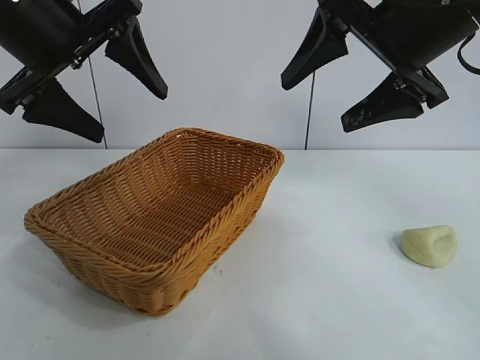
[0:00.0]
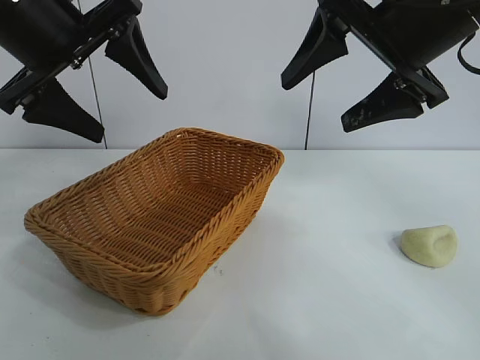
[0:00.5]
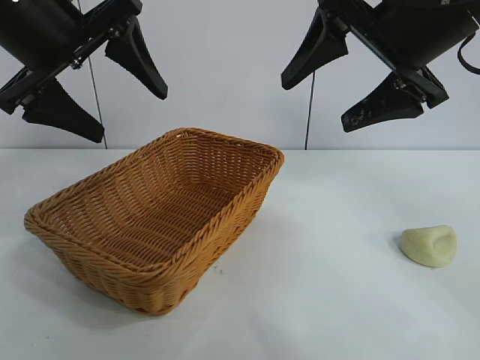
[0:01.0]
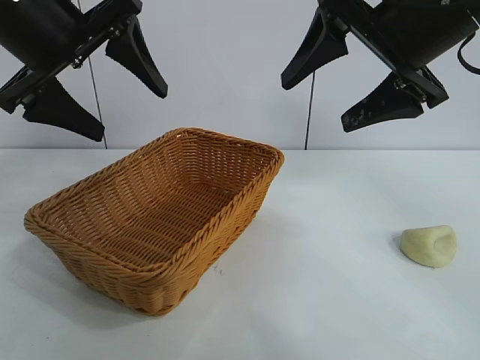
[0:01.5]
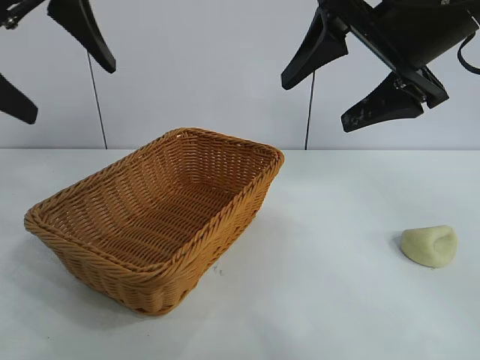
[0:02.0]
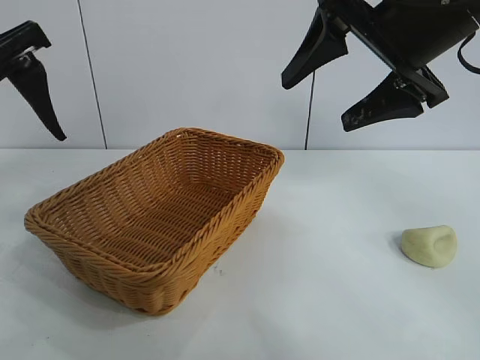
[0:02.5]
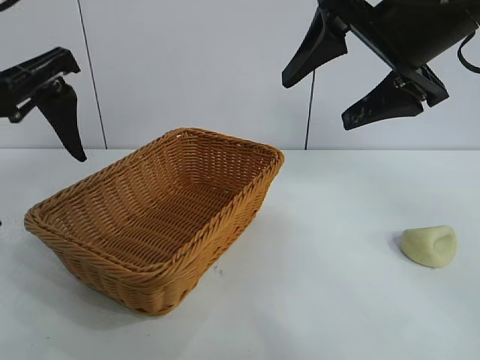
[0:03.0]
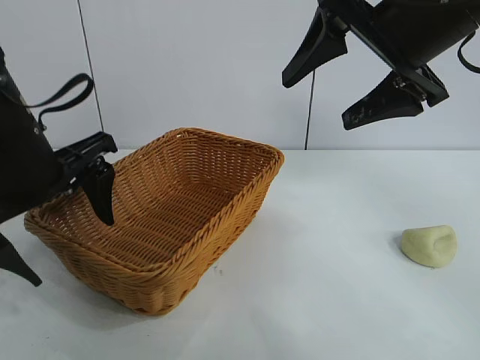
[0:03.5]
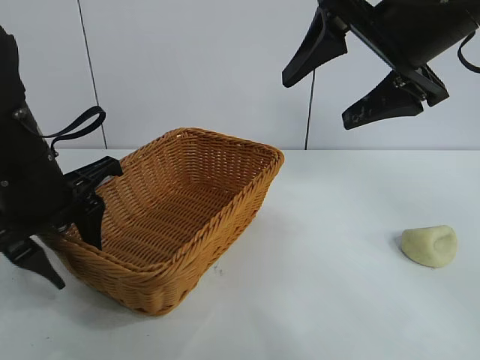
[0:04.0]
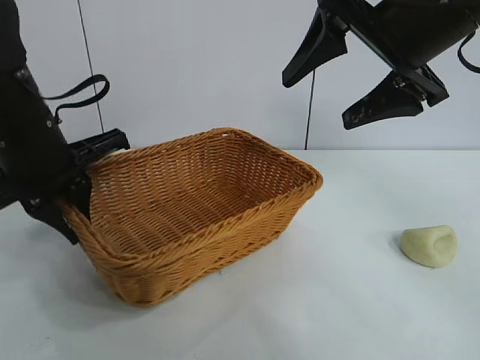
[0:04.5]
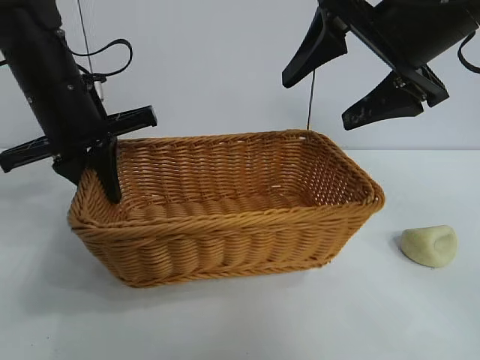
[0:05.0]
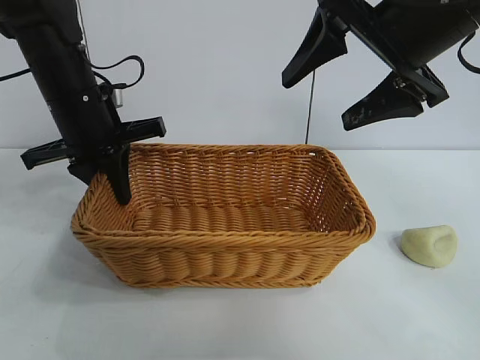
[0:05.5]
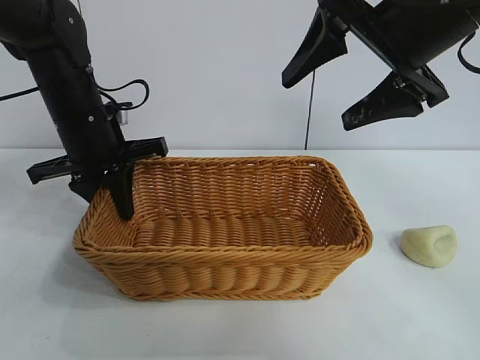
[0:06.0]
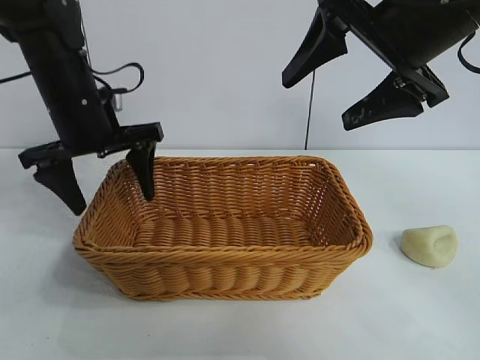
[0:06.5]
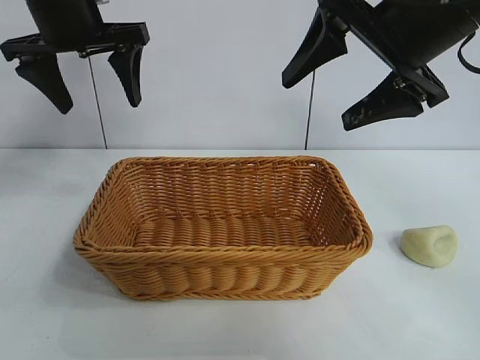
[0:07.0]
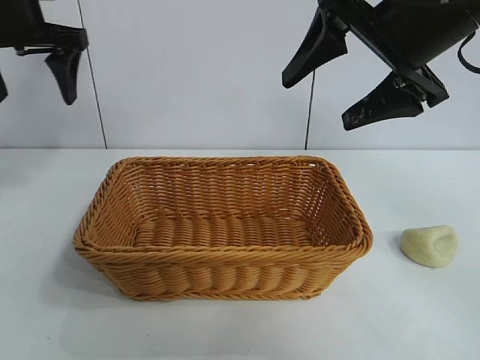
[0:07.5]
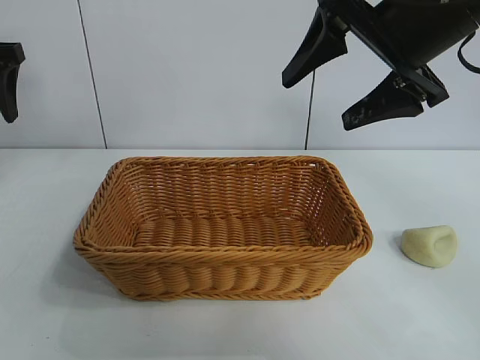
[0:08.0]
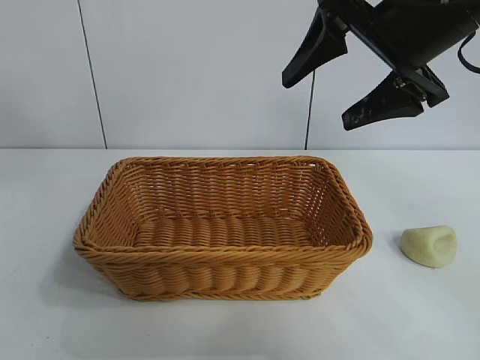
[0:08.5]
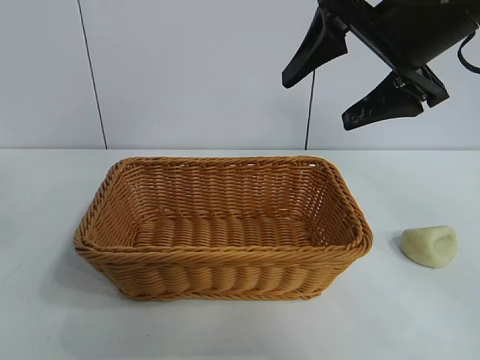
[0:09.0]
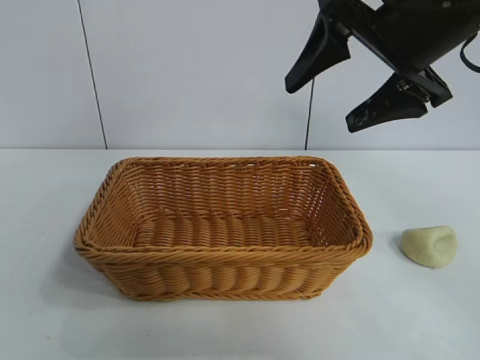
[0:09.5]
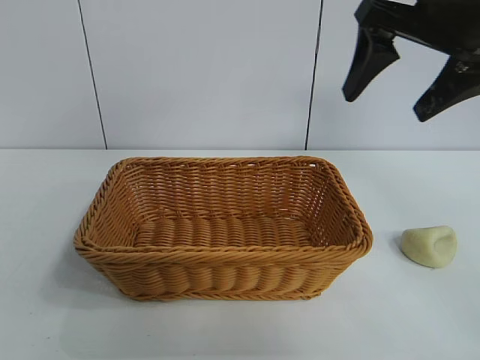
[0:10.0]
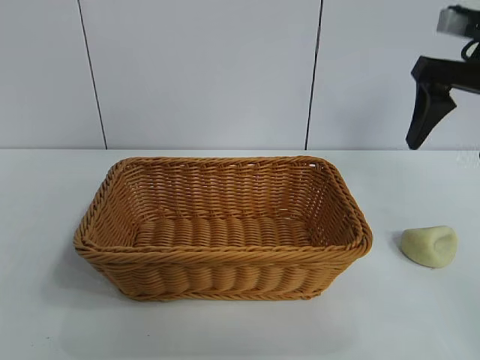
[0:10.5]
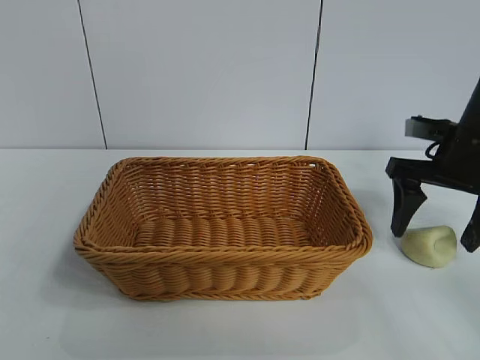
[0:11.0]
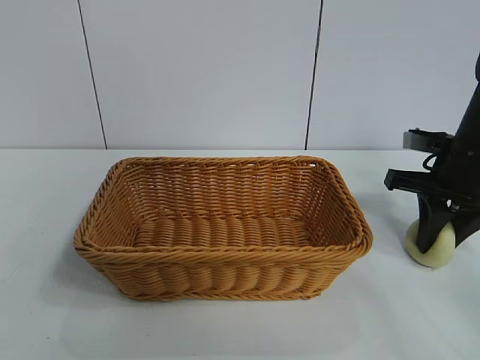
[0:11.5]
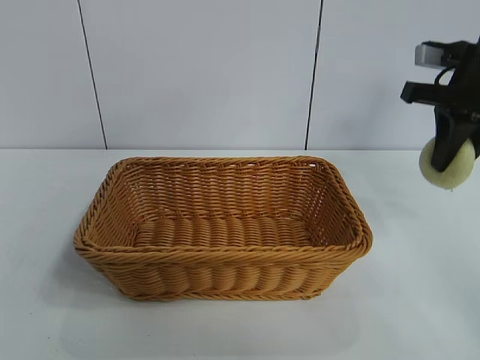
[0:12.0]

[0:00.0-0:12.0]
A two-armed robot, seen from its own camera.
Task of the whole recording: pick up the egg yolk pastry and put it into the basket.
Step, 0:01.5 to 0:04.0: Grasp the basket with left gripper.
Step, 0:04.5 to 0:06.0: Place the basket in the center of view with left gripper.
Step, 0:06.5 to 0:11.0: Grasp egg yolk pastry with right gripper.

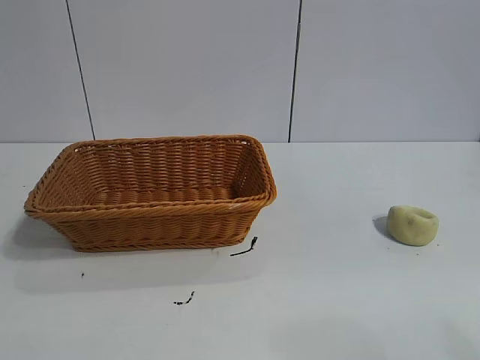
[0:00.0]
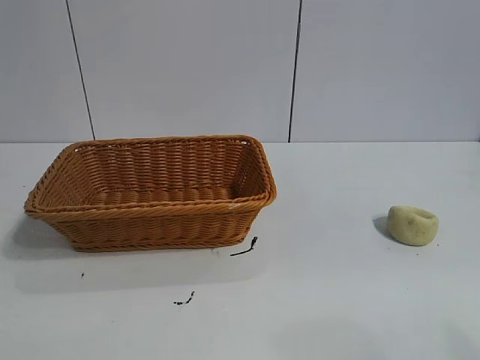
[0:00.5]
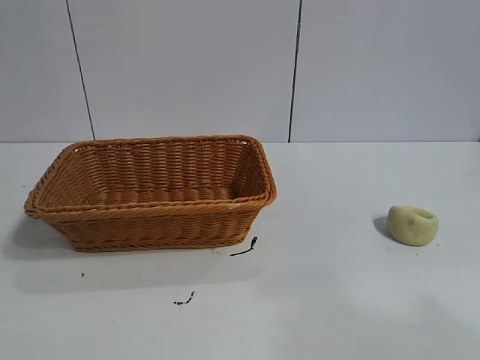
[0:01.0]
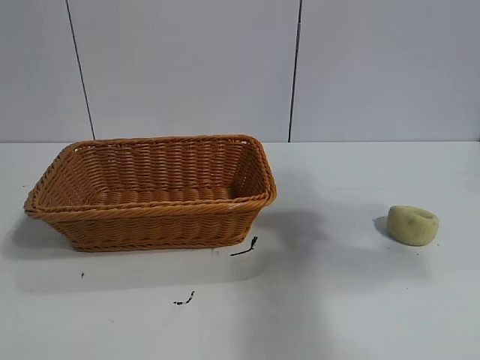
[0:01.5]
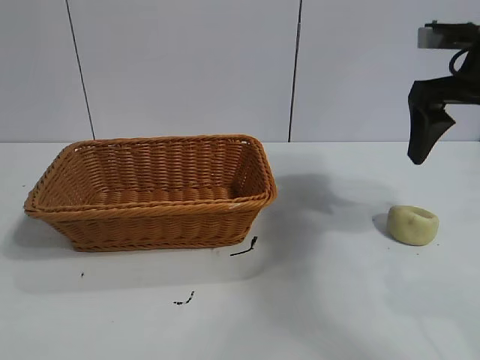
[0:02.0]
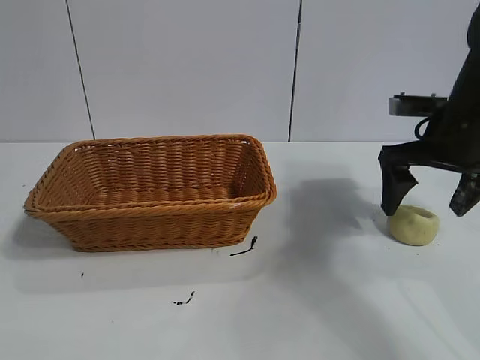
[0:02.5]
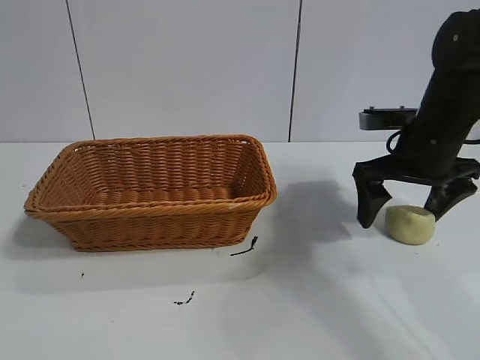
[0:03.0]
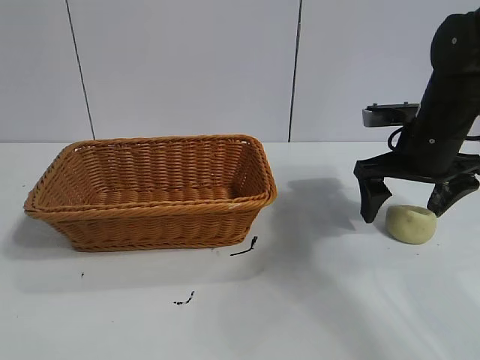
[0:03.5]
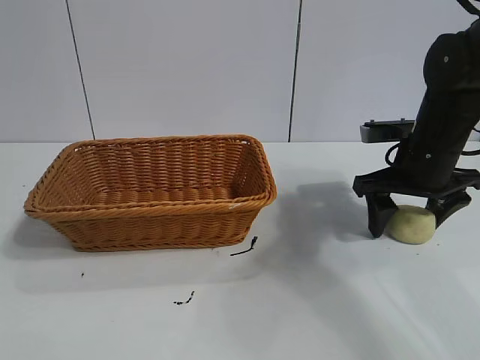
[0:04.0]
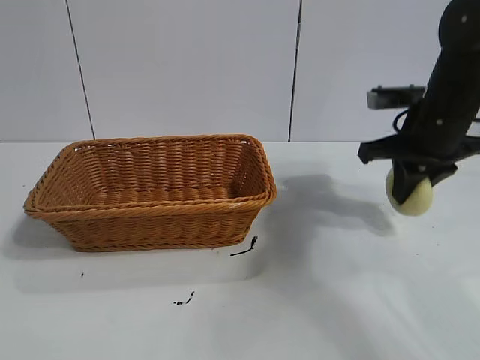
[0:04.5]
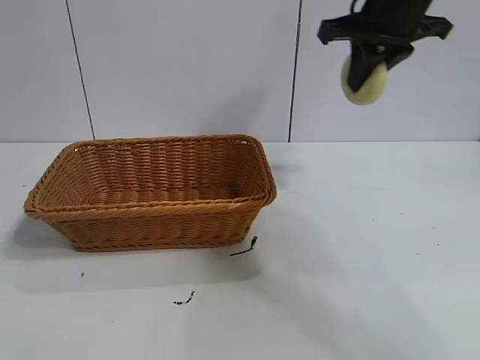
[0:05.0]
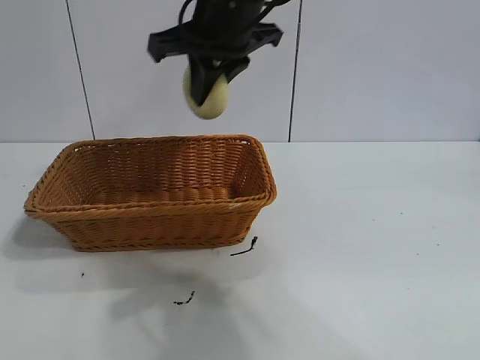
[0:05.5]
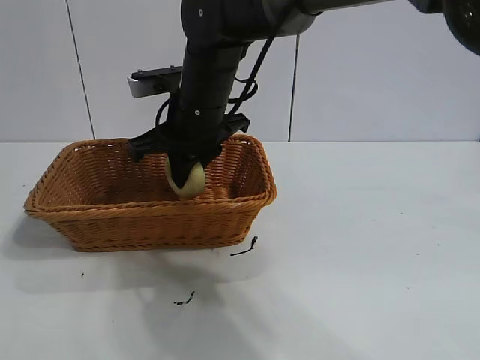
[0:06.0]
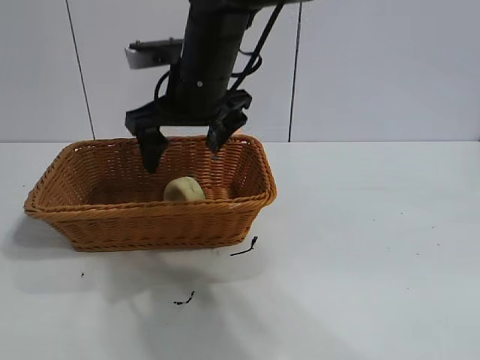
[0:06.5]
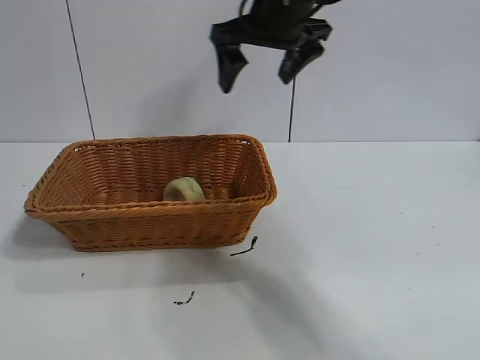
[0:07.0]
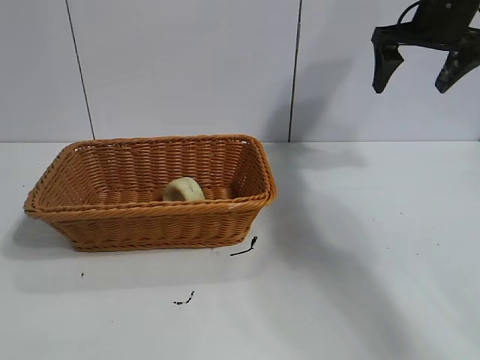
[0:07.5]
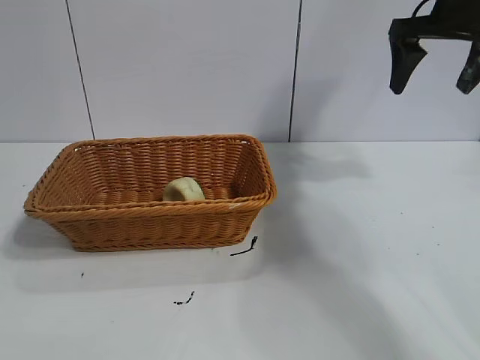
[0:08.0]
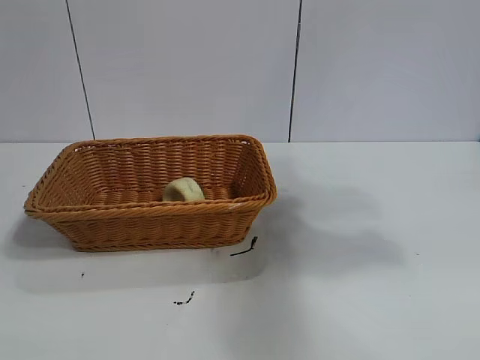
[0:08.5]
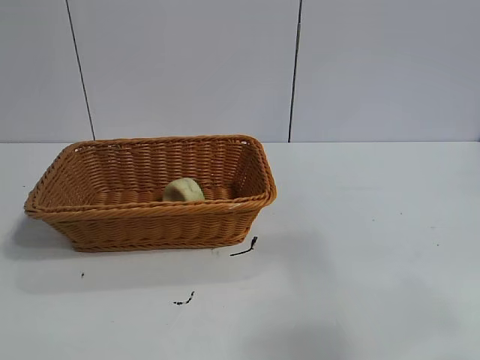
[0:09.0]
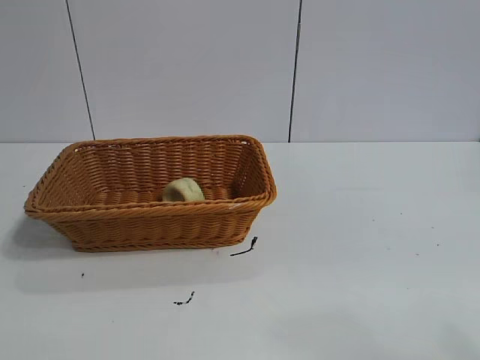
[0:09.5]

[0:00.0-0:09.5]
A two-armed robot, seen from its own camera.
Task of the whole recording: pick up the egg yolk pastry and put it into the basket.
Step, 0:00.0 to 0:04.0: Grasp egg yolk pastry with right gripper.
Step, 0:04.5 to 0:06.0: Place the egg yolk pastry in the basket with right gripper.
